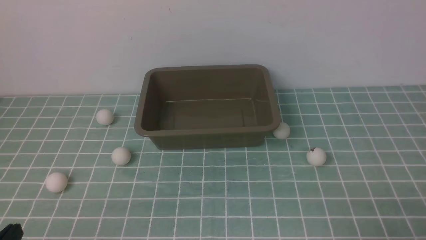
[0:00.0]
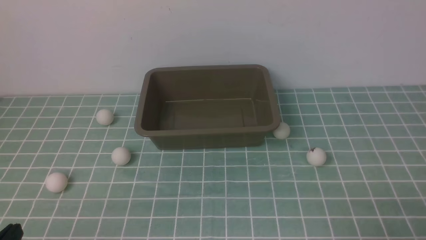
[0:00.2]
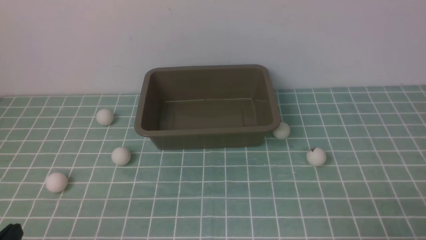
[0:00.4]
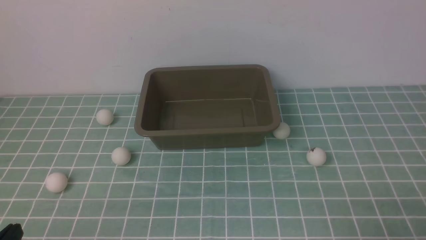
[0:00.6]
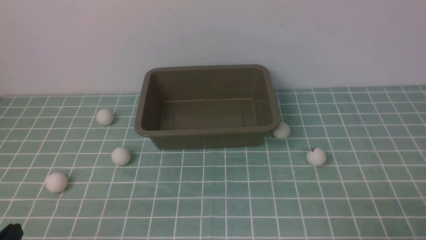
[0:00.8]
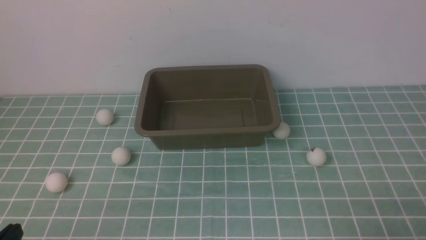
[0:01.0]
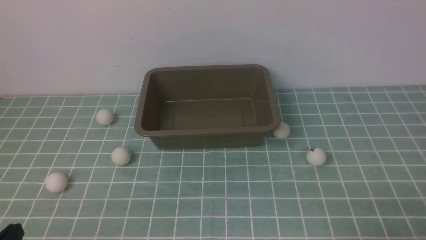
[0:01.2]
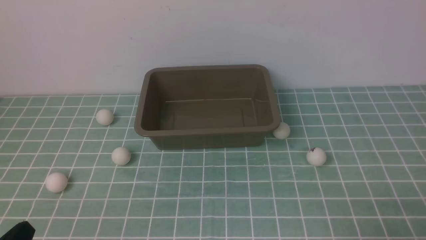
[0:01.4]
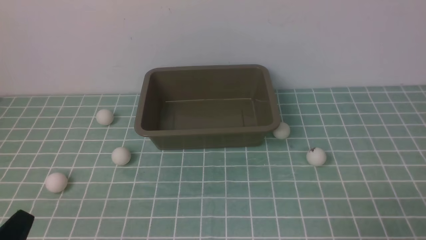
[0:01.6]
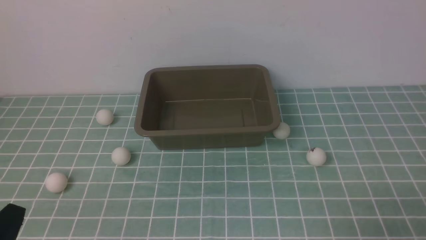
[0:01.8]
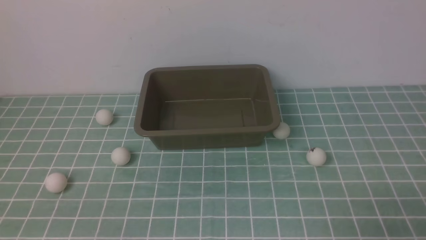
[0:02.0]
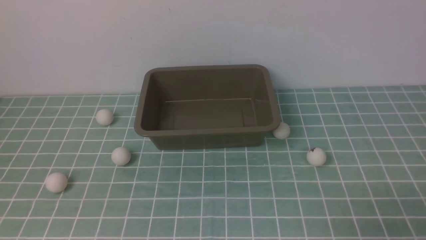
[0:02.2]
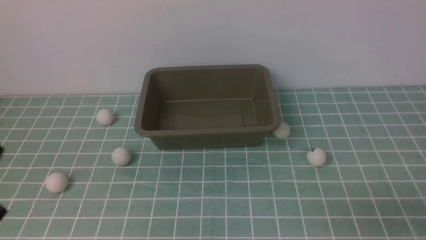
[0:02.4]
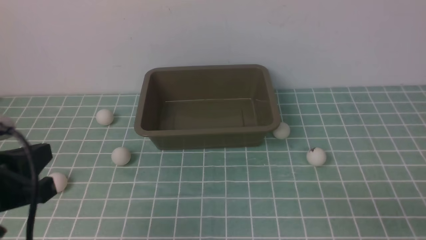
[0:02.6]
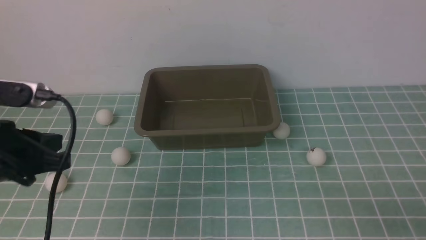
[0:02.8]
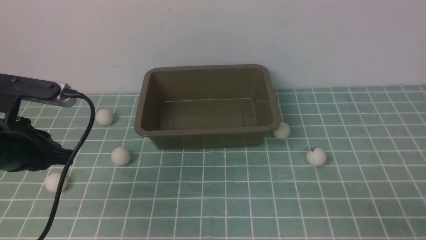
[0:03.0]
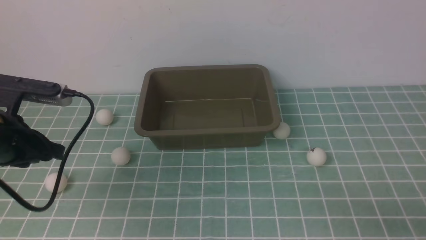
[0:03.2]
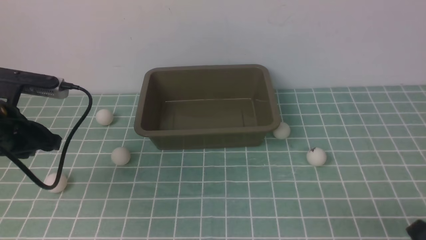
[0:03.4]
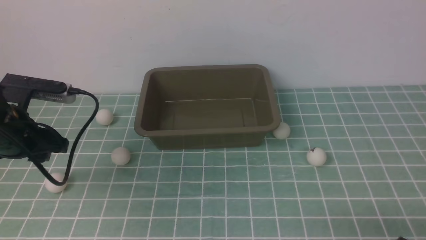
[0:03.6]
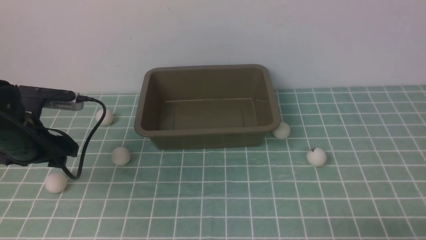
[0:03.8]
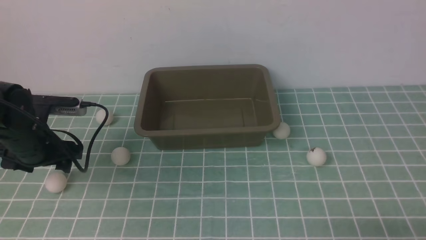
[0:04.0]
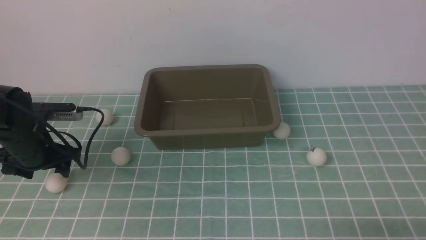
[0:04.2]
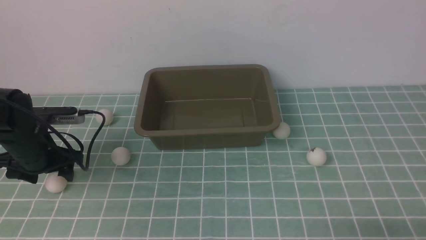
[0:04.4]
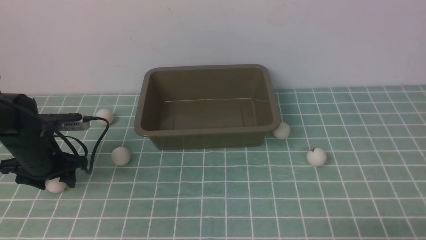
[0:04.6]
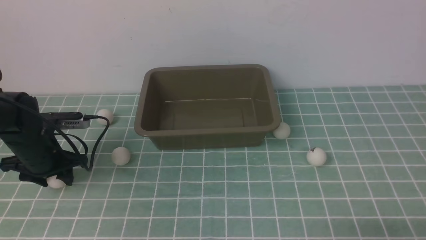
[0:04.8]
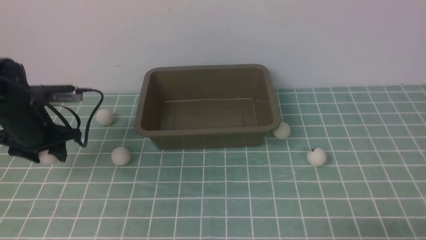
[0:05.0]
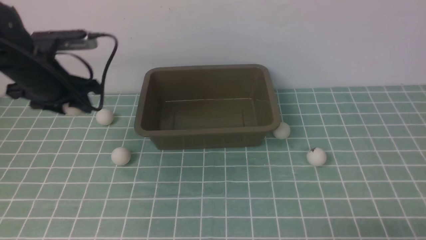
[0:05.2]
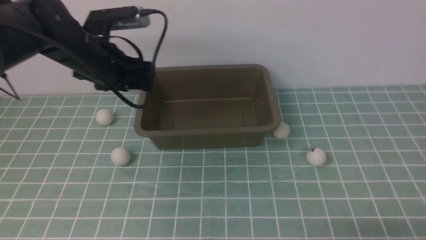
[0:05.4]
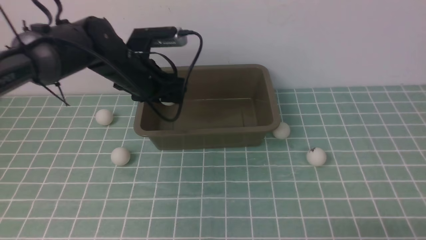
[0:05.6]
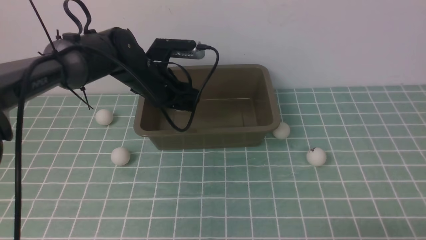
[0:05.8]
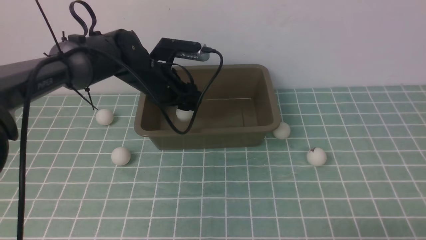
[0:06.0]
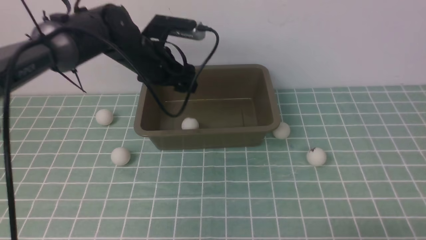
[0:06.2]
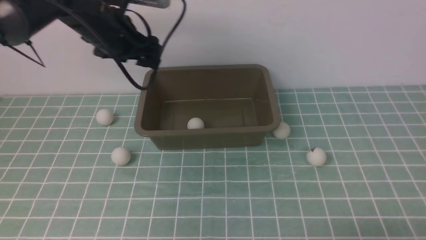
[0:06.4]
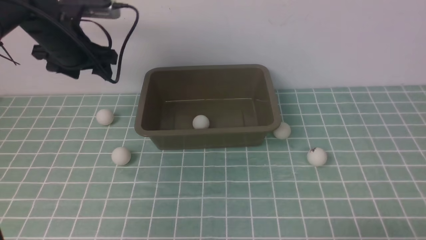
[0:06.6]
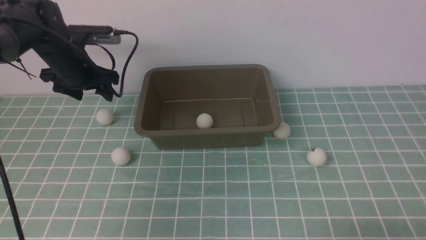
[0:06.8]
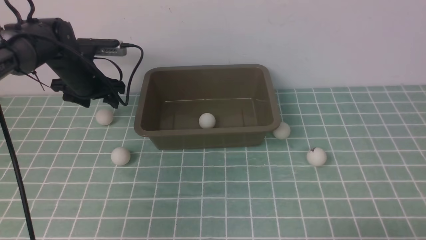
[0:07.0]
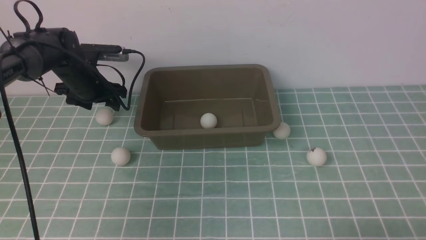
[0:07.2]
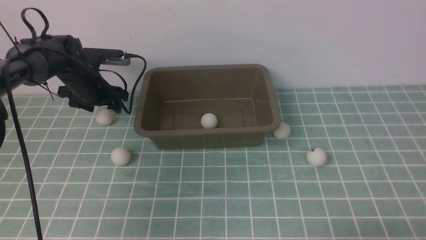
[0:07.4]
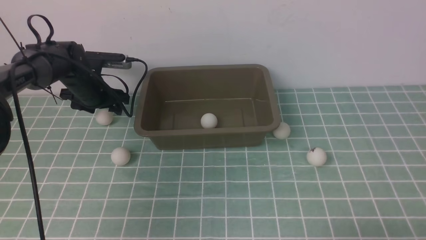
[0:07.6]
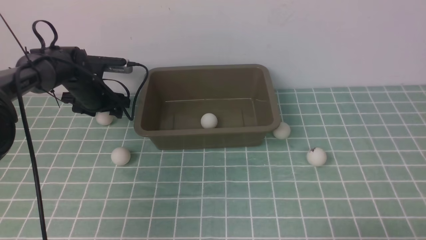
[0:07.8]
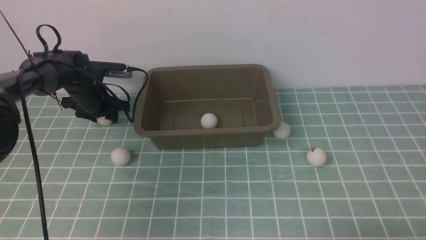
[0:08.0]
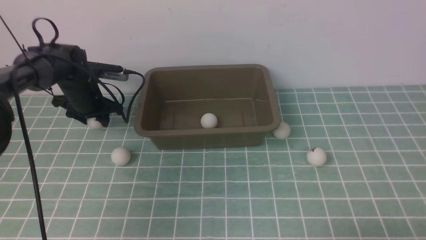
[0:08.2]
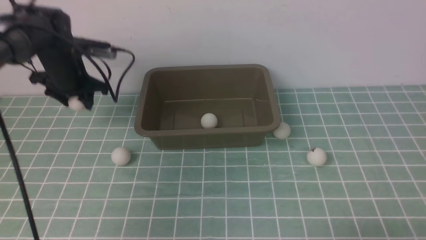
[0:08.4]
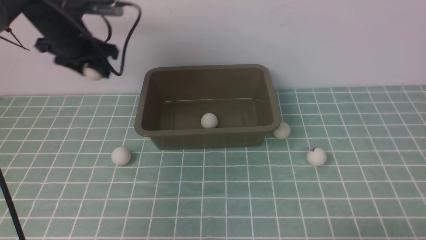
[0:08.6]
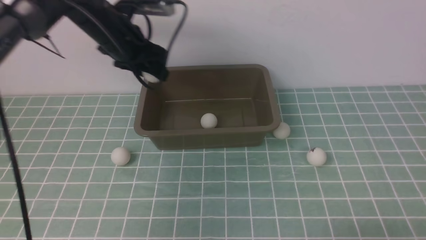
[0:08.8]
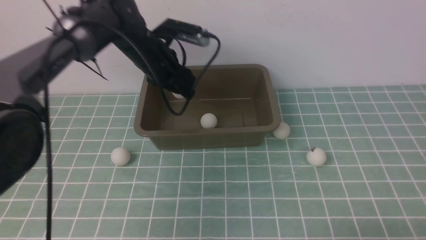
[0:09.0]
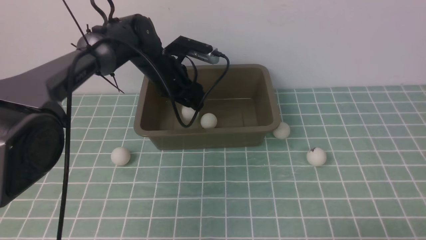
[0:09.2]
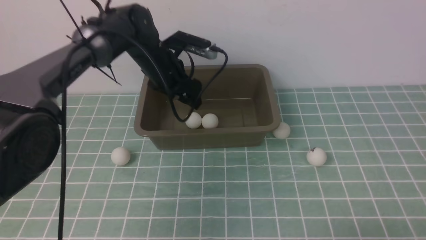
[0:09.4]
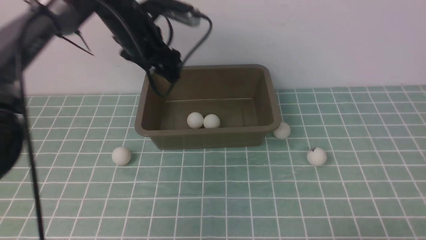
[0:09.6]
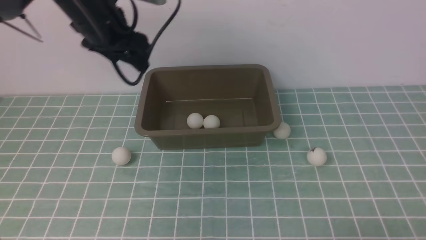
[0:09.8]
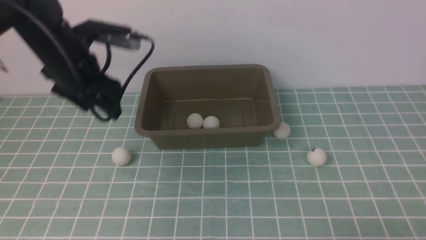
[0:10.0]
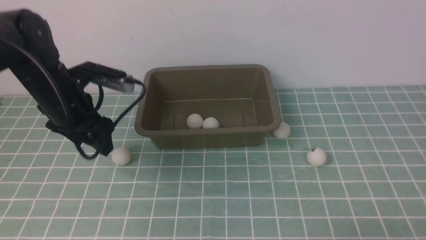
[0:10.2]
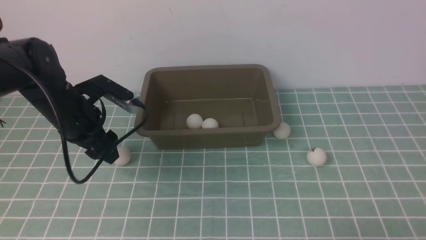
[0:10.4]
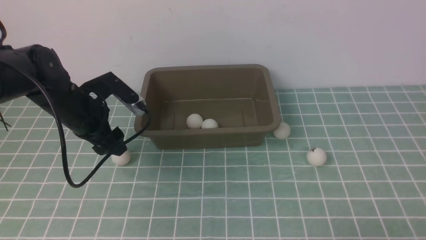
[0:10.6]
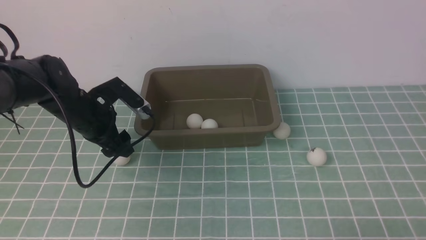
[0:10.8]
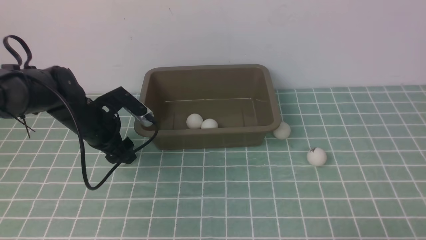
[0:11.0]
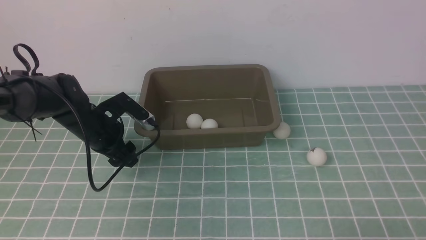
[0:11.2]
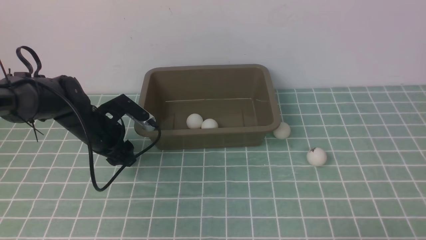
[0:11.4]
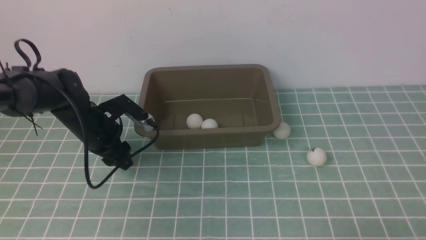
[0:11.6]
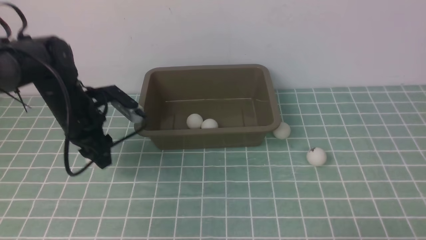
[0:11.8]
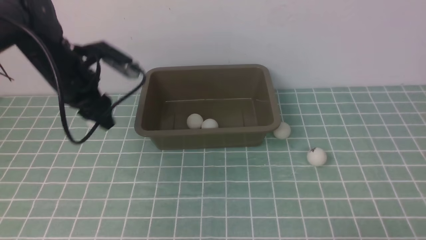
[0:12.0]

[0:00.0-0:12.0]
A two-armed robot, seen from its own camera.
Step, 0:00.0 to 0:05.0: use the left arm to clamp the table tennis ball closest to it.
Step, 0:05.2 to 0:06.0: use the left arm to put the table tennis ball into the box.
Step, 0:06.2 to 0:08.2: use the left arm to clamp the table tennis ball closest to it.
Step, 0:08.4 to 0:09.2: use the left arm to put the table tennis ball into the box.
Step, 0:09.4 to 0:11.8: use the left arm to clamp the table tennis ball closest to it.
0:01.6 to 0:03.0: The left gripper goes about 20 cm forward.
0:03.0 to 0:04.4: The left gripper heads downward and forward, covering about 15 cm, and opens up.
0:04.4 to 0:06.0: The left gripper shifts some 15 cm upward, forward and to the right.
0:06.0 to 0:07.6: The left gripper travels downward by some 5 cm.
0:07.6 to 0:09.0: The left gripper moves to the right, roughly 15 cm, and opens.
0:09.0 to 0:10.4: The left gripper heads to the left and backward, covering roughly 15 cm.

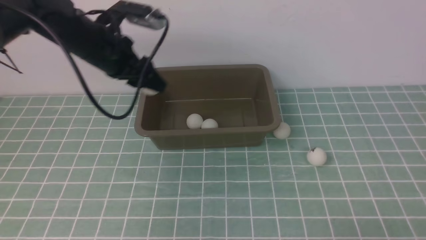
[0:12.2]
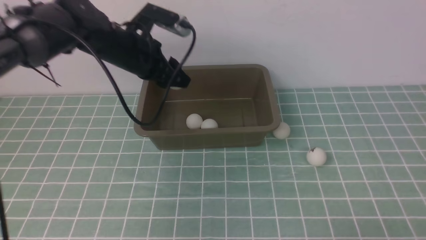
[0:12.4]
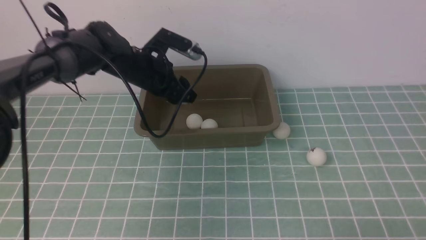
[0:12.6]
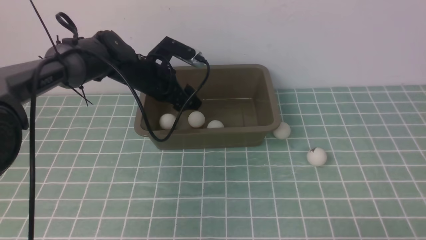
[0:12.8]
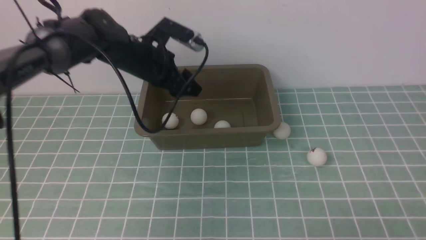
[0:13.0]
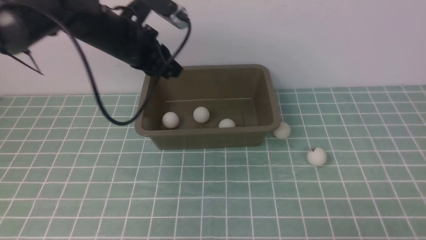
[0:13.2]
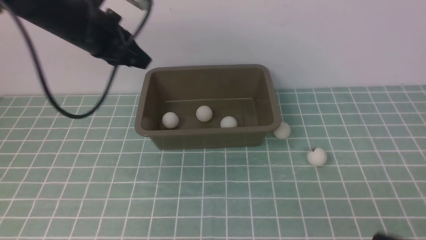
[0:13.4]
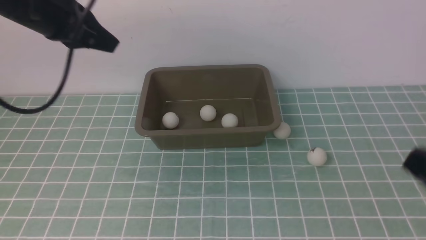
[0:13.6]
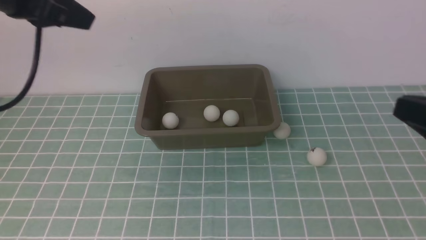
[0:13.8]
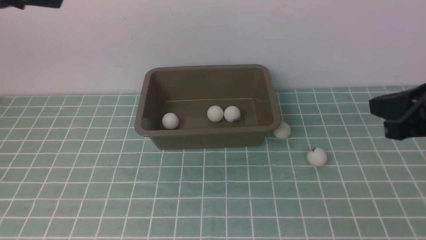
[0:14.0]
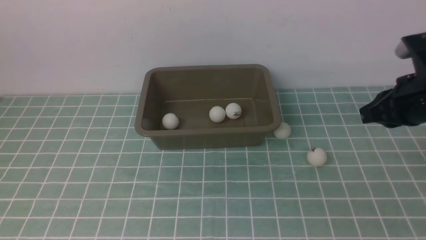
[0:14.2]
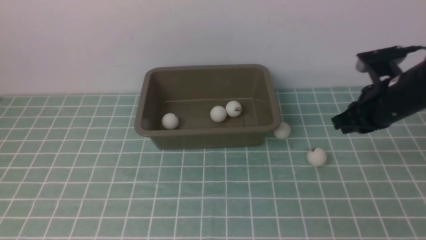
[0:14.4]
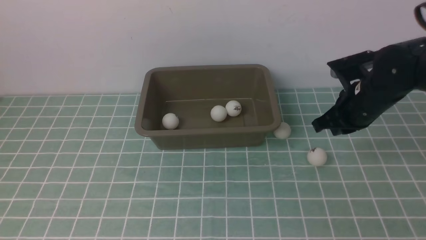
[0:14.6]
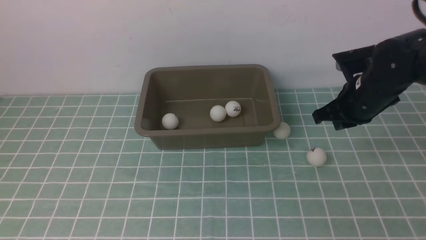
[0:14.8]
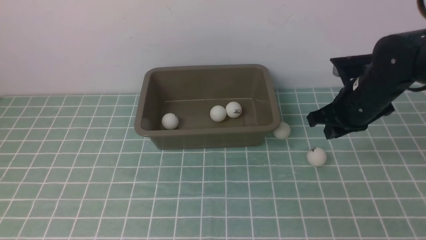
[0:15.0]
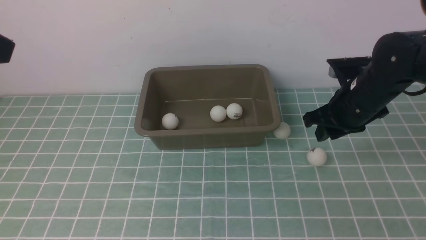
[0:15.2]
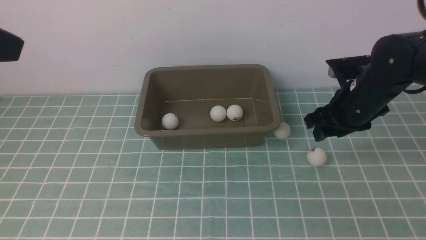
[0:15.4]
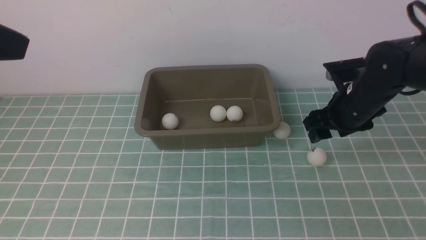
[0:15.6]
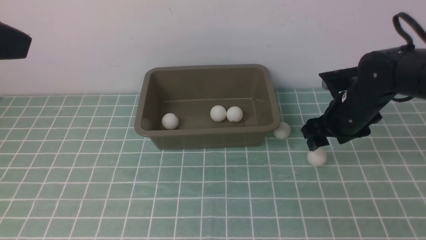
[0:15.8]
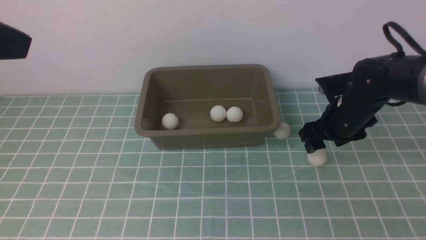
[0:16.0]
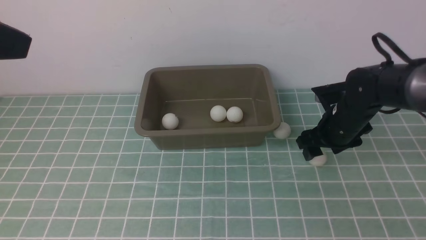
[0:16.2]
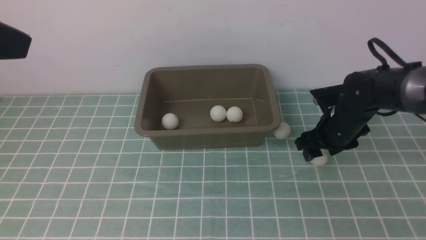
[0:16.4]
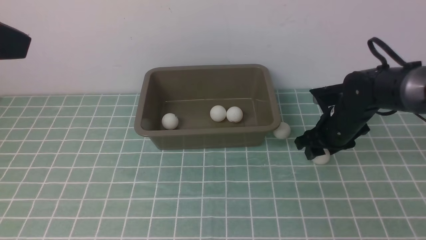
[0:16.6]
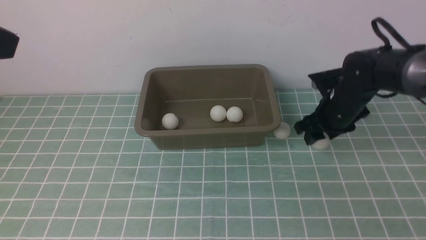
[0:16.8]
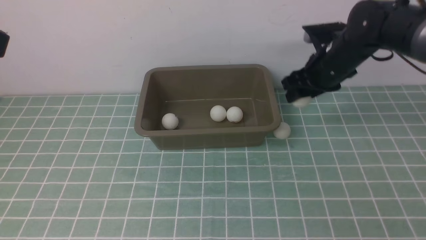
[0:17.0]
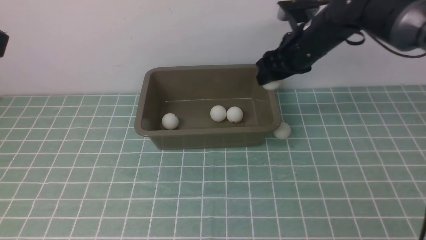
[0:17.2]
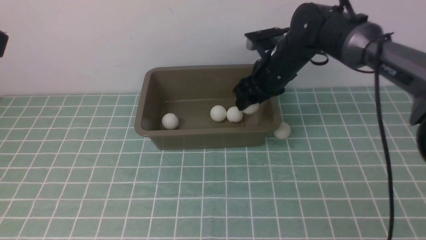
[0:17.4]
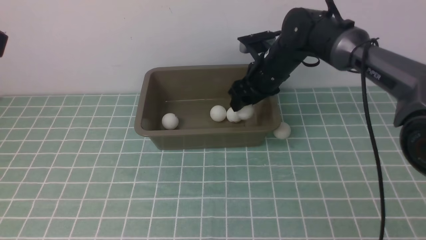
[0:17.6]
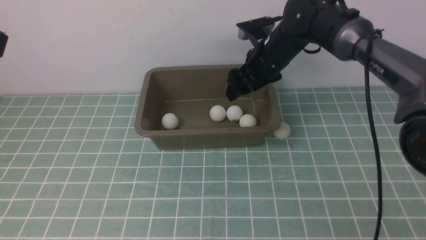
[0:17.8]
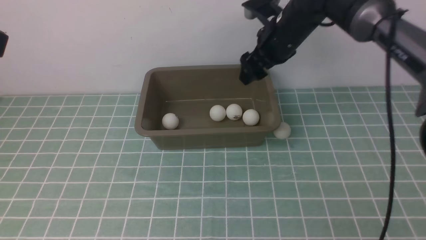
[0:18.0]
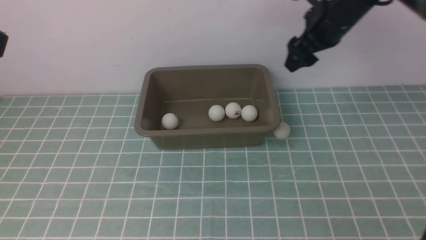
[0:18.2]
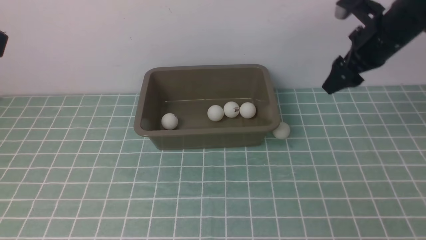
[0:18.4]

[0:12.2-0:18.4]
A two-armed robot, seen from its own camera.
Step, 0:12.2 to 0:12.8: use the left arm to put the table tennis ball into the box.
Step, 0:13.0 to 0:16.6: use the right arm to clamp the table tennis ball closest to it.
Step, 0:17.0 to 0:17.8: use the right arm to put the table tennis ball into the box.
0:12.2 to 0:13.8: The right gripper shifts roughly 20 cm forward and upward. Meanwhile the left gripper goes approximately 25 cm upward and backward, and closes.
0:13.8 to 0:15.4: The left gripper travels backward by approximately 10 cm. The right gripper moves forward and downward, roughly 20 cm, and opens.
0:15.4 to 0:16.8: The right gripper ends up approximately 5 cm from where it was.
0:16.8 to 0:18.4: The right gripper travels upward by roughly 10 cm, moves some 10 cm to the left and comes back, and opens up.
